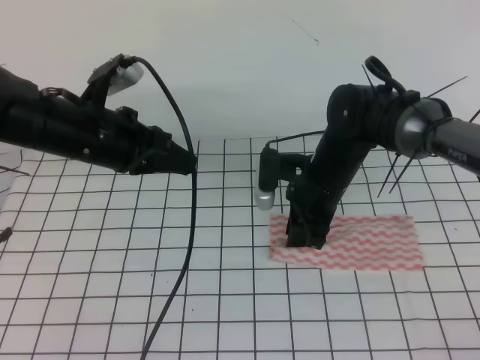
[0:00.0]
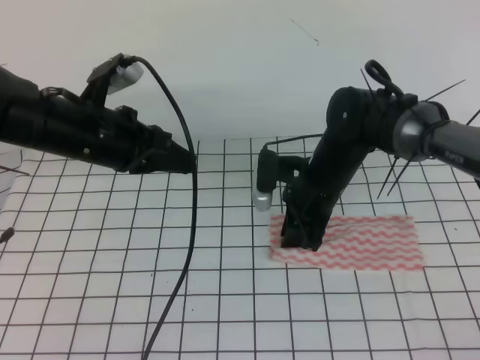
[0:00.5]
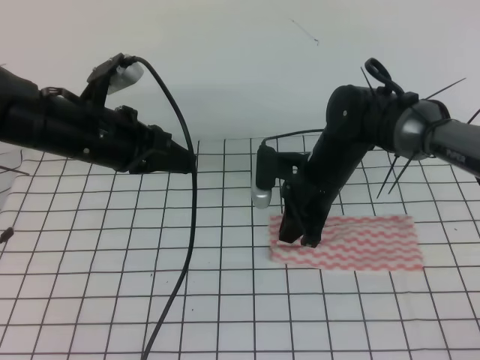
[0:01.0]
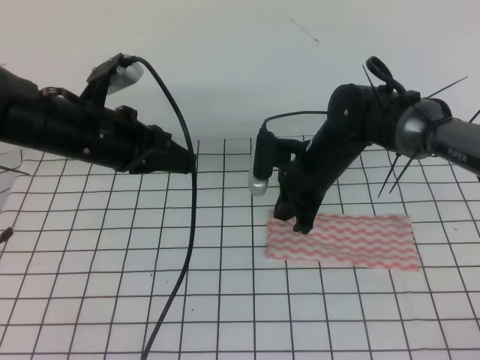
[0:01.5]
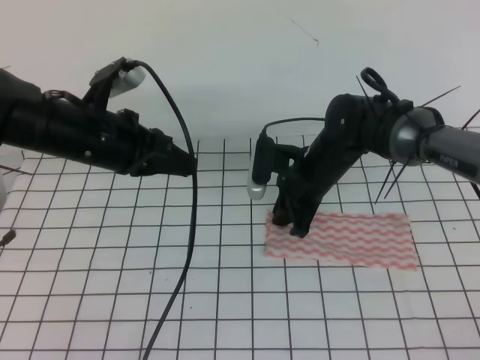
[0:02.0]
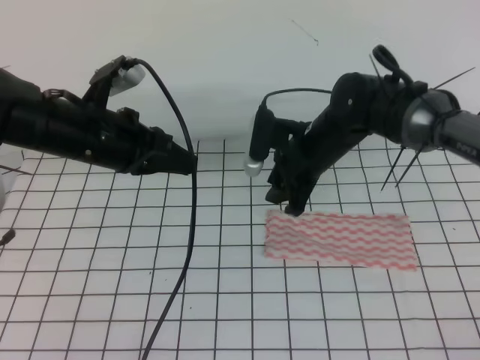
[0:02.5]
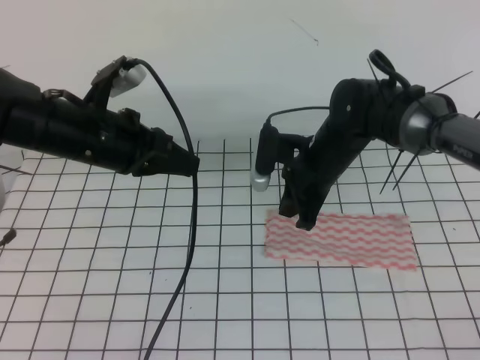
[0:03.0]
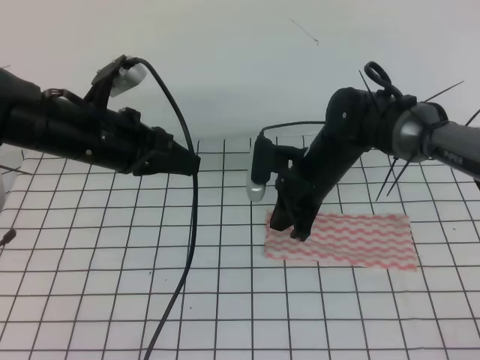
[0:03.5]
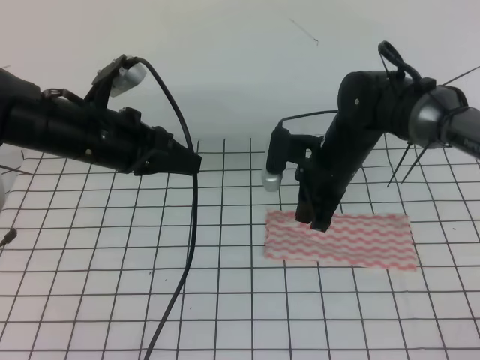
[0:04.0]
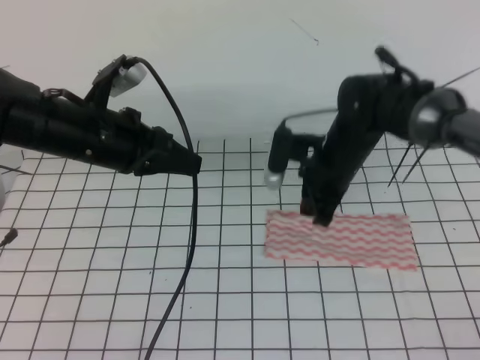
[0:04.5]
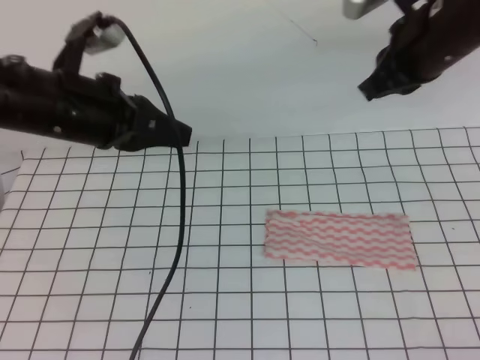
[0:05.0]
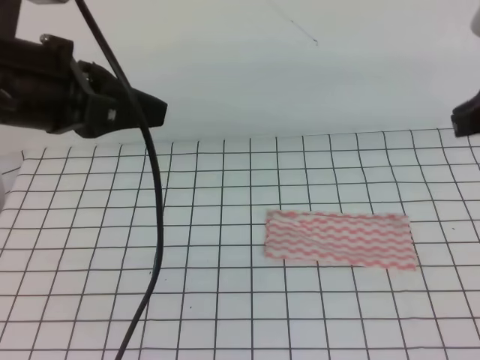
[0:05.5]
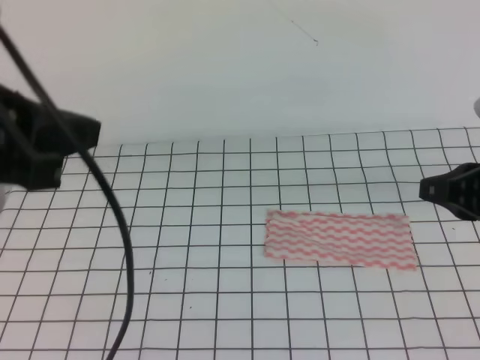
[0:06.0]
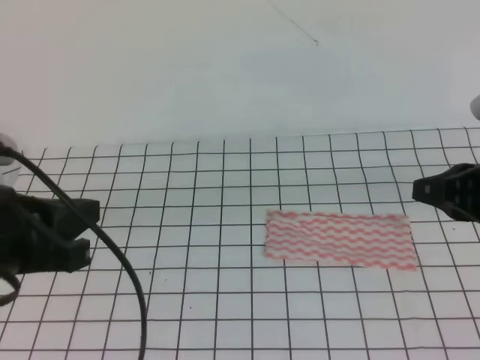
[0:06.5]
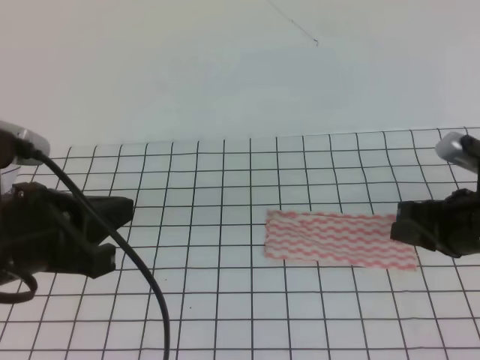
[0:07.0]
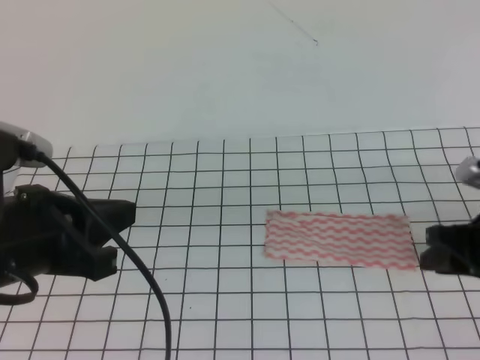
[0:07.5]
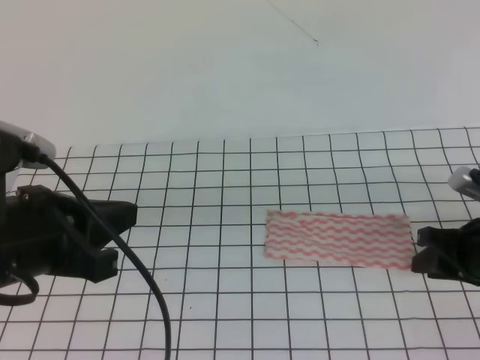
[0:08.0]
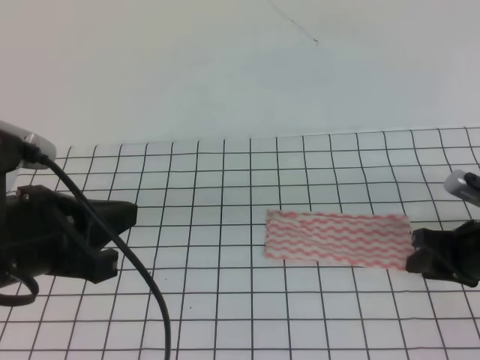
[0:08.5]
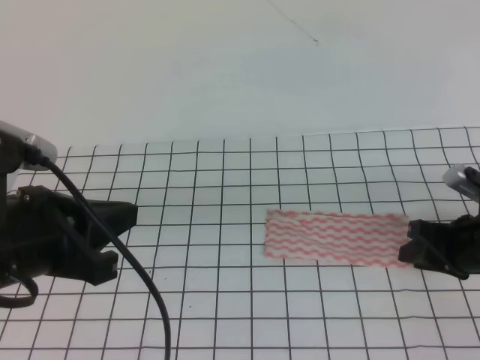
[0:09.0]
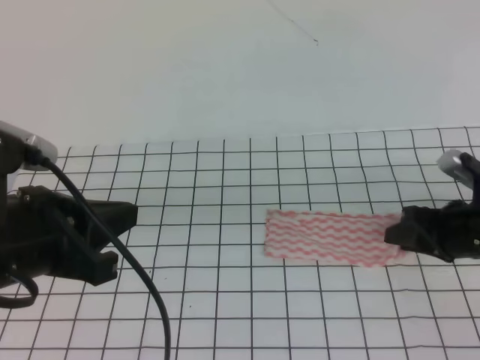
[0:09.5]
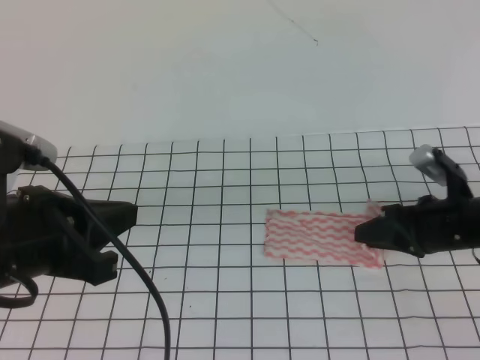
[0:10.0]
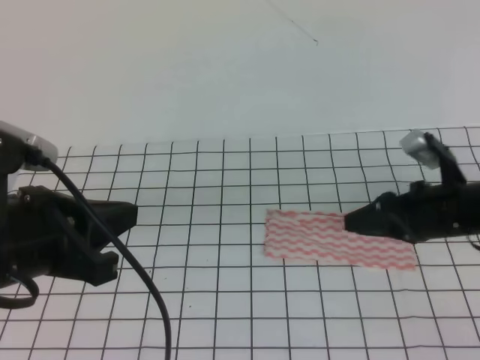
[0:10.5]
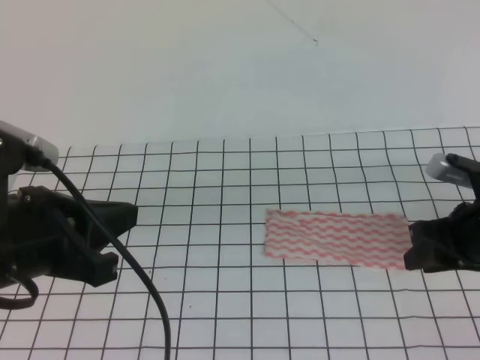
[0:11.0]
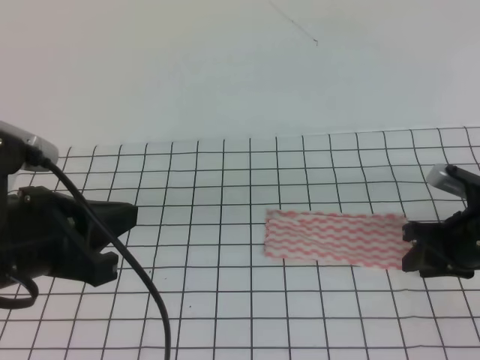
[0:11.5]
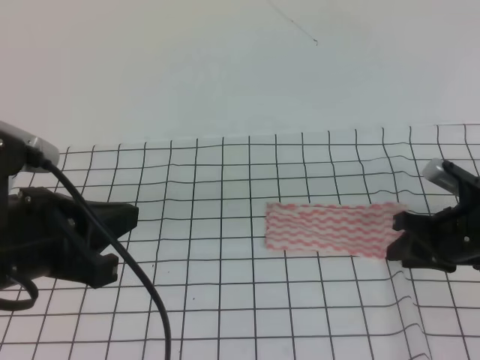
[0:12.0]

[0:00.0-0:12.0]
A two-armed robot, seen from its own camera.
0:00.0 to 0:02.0: The grippers move only a little.
0:02.0 to 0:04.0: The right gripper opens, then closes once more.
0:04.0 to 0:06.0: The left gripper moves backward and upward, about 20 cm. The right gripper is displaced backward, to the right and upward by about 25 cm.
0:06.0 to 0:08.0: Both grippers move downward, some 10 cm. The right gripper opens its fingers.

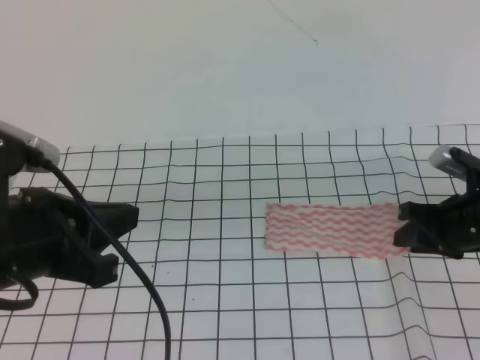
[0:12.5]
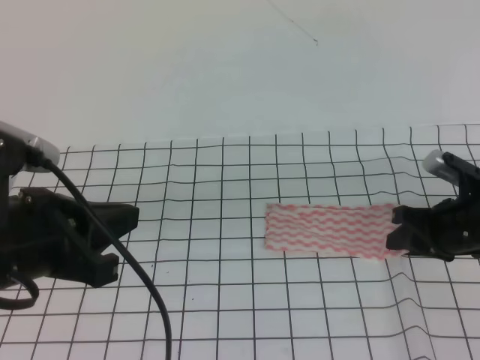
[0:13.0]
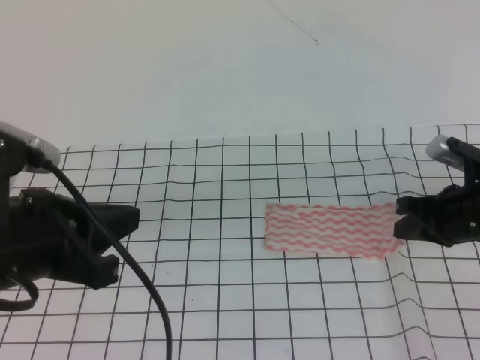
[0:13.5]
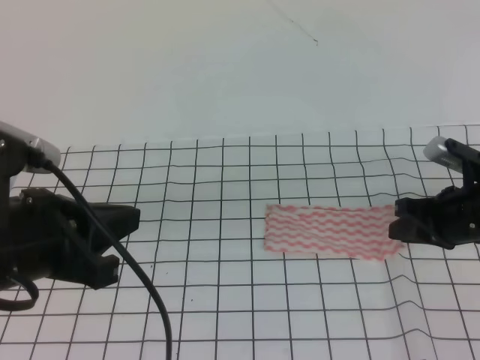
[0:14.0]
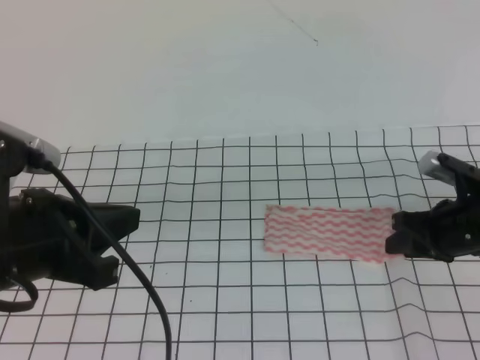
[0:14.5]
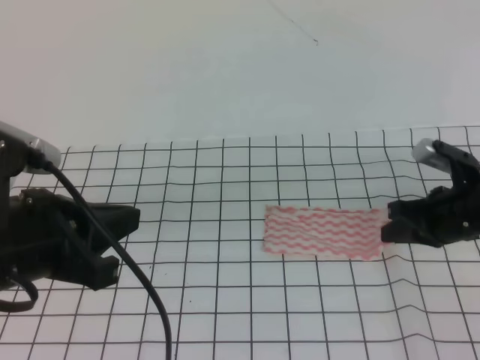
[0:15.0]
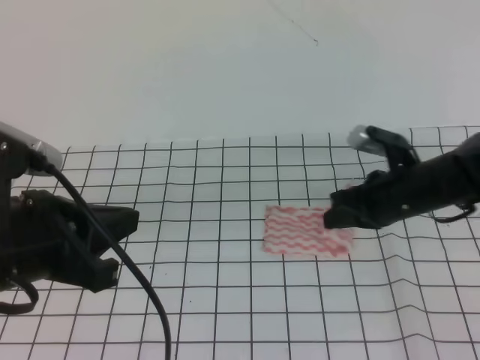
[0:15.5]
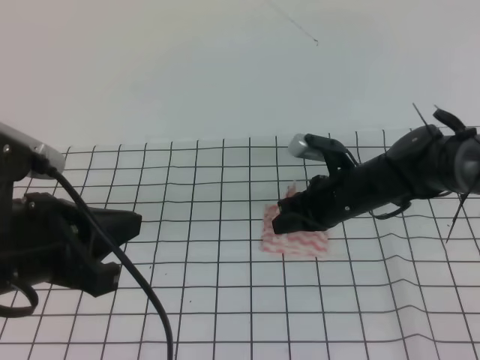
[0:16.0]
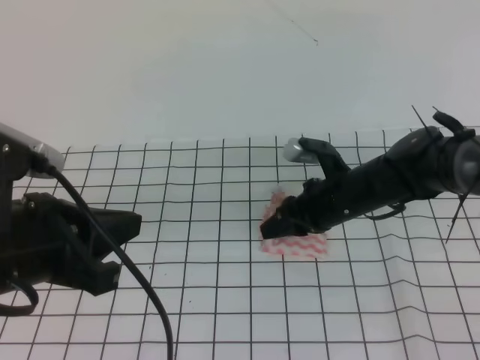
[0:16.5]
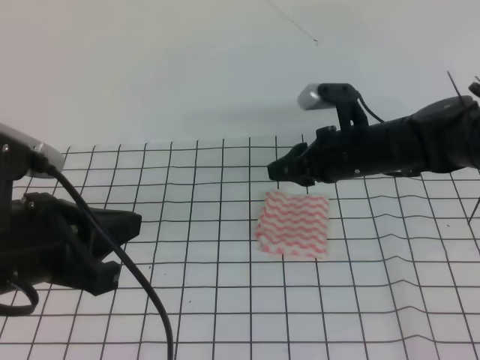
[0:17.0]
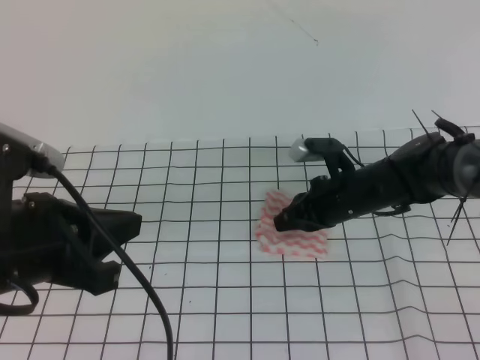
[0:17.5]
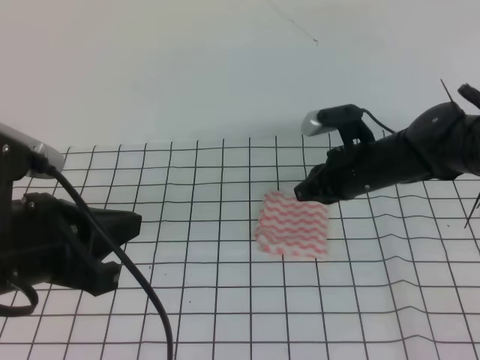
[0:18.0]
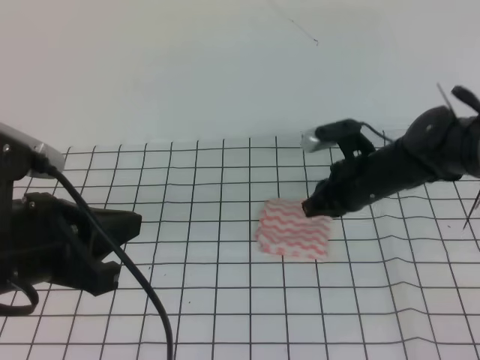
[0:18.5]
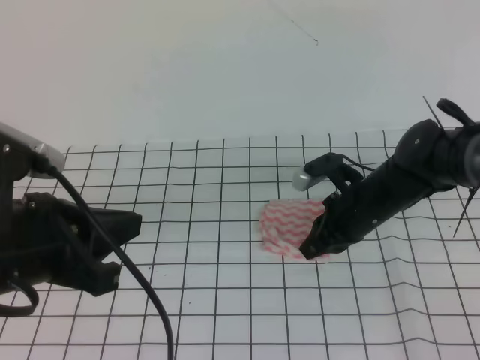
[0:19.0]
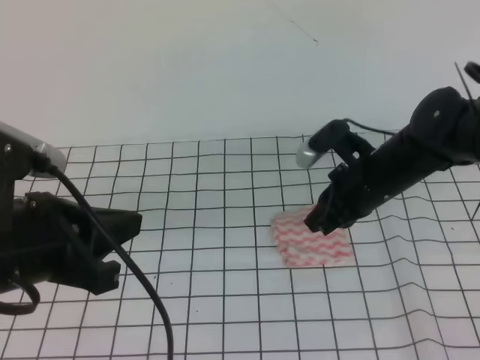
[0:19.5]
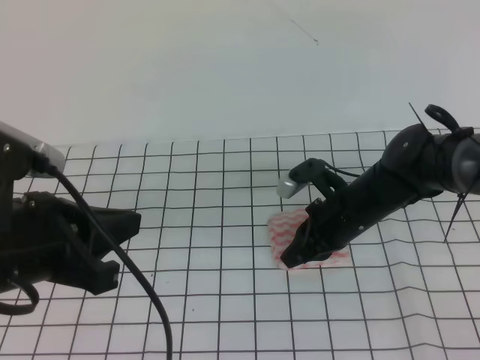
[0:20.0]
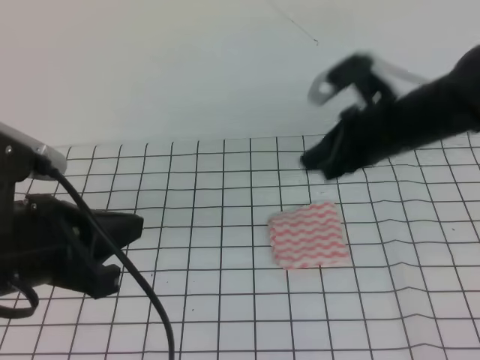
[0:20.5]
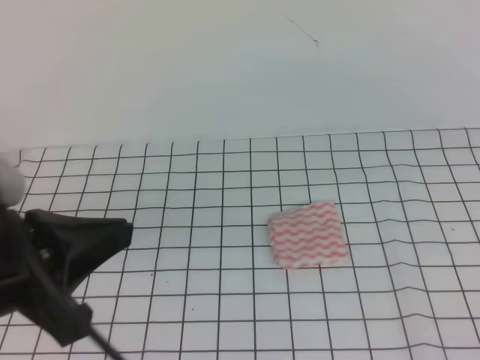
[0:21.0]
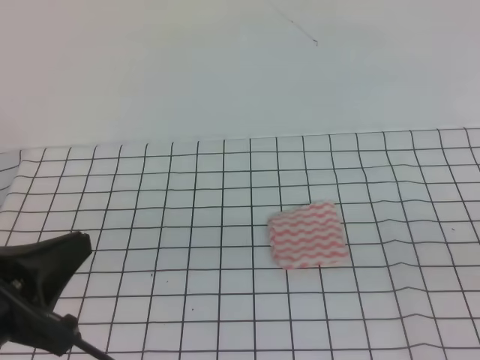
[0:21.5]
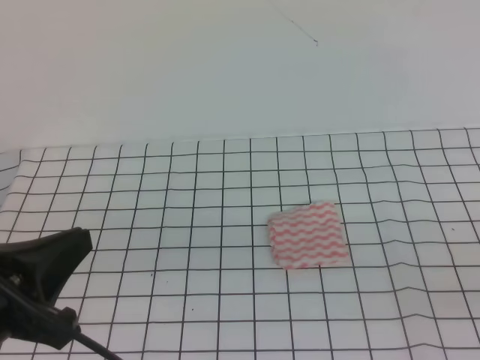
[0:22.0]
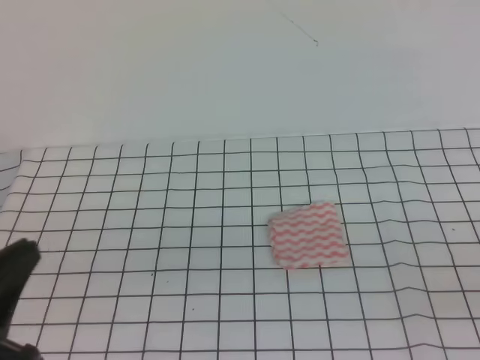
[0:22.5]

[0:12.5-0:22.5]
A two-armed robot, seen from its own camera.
0:12.5 to 0:14.5: The right gripper closes, then opens again.
0:14.5 to 0:16.5: The right gripper is displaced to the left by approximately 15 cm, and closes, then reopens.
0:16.5 to 0:18.5: The right gripper closes its fingers.
0:18.5 to 0:20.5: The right gripper heads upward, covering roughly 10 cm.
0:20.5 to 0:22.5: The left gripper heads backward, covering roughly 10 cm; the right gripper moves backward and to the right, roughly 30 cm.

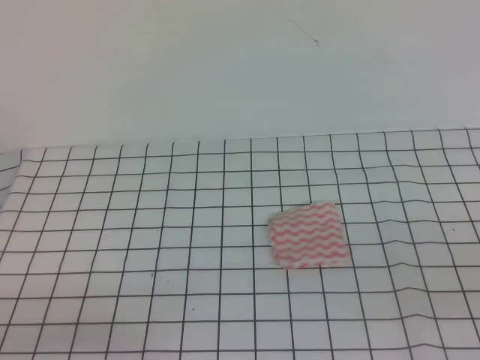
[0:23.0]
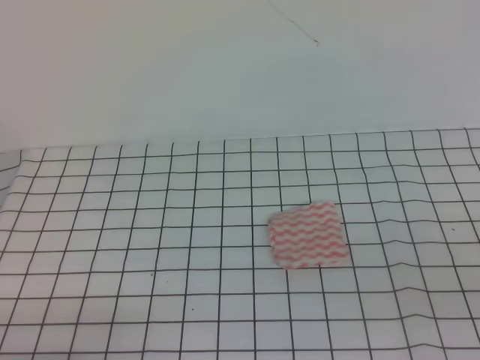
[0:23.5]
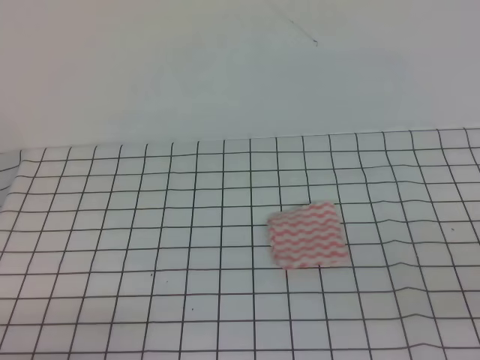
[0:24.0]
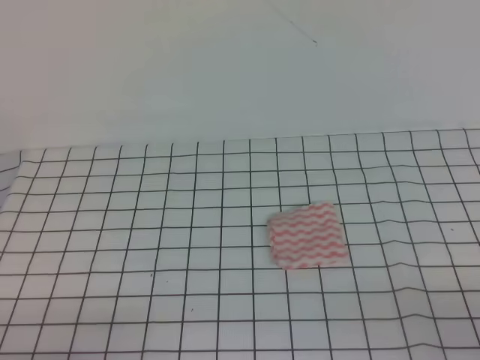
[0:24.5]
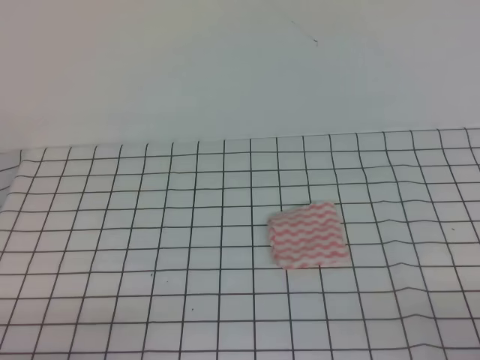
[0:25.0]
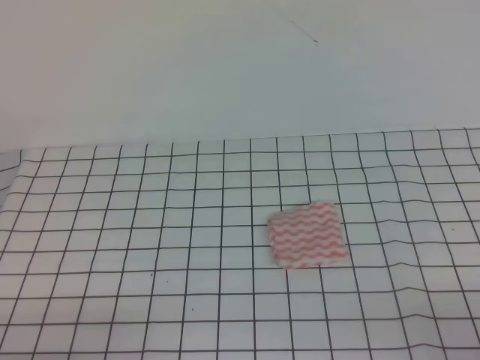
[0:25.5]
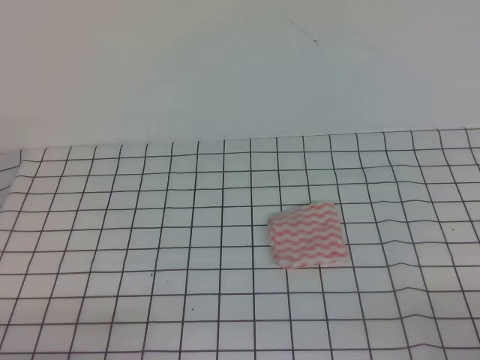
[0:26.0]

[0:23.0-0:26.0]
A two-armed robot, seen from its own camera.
0:23.0 to 0:24.5: The right gripper is displaced downward by about 5 cm.
